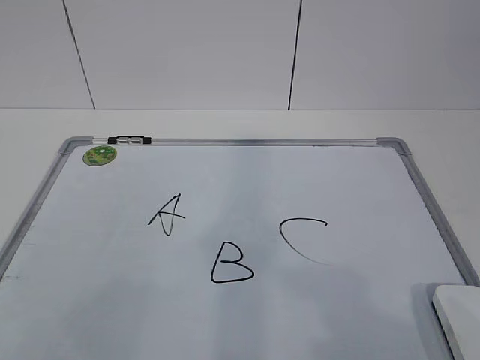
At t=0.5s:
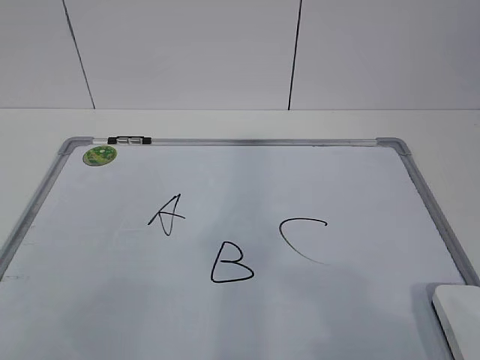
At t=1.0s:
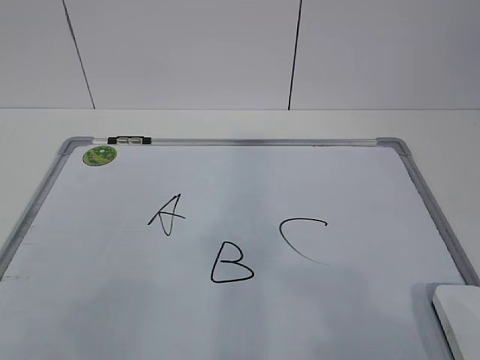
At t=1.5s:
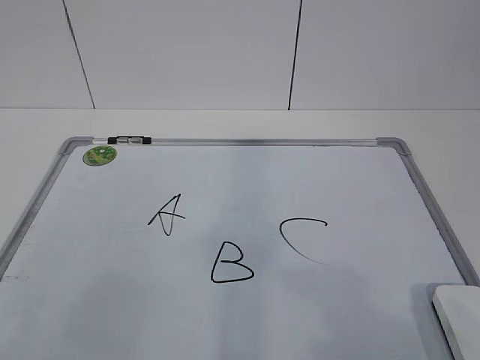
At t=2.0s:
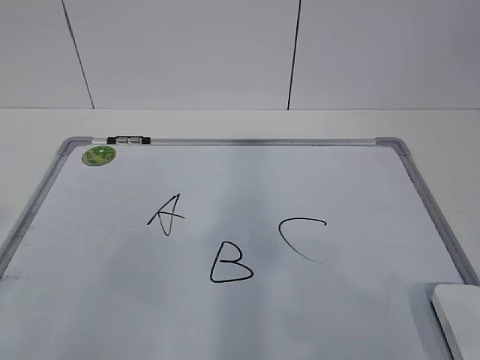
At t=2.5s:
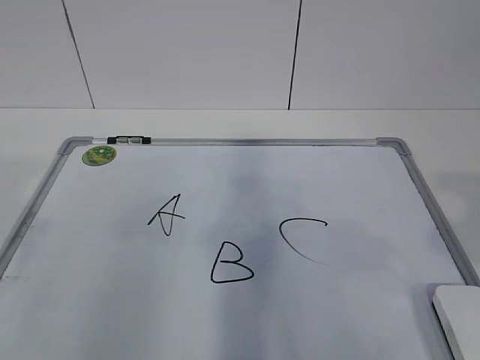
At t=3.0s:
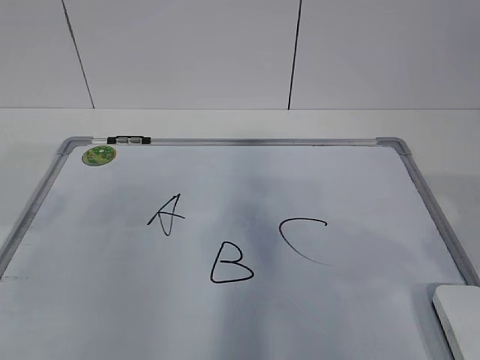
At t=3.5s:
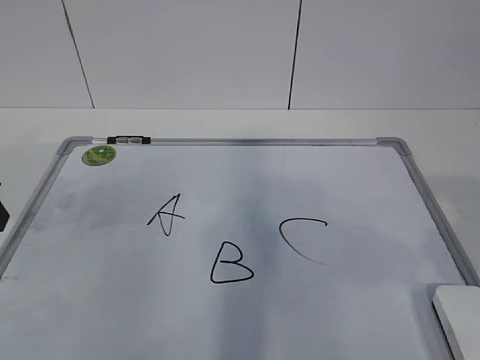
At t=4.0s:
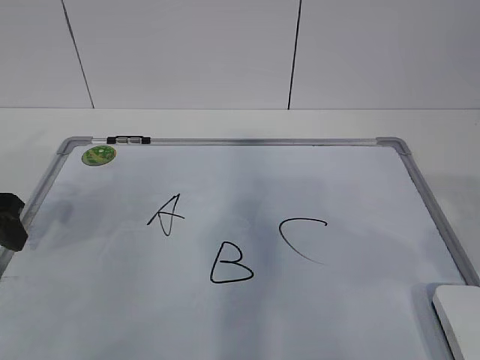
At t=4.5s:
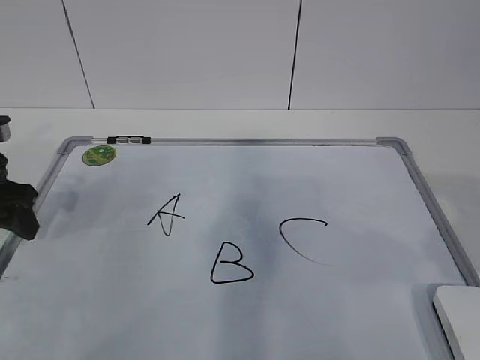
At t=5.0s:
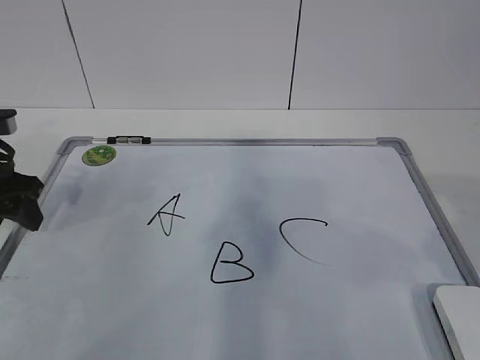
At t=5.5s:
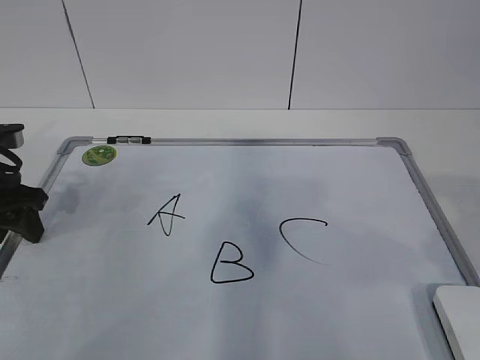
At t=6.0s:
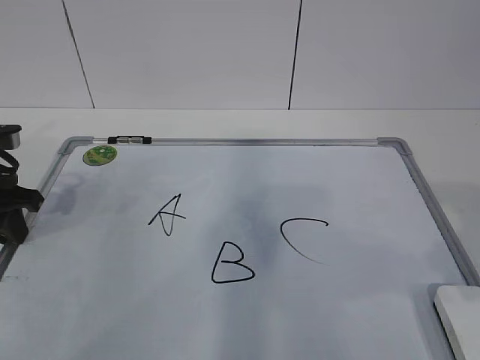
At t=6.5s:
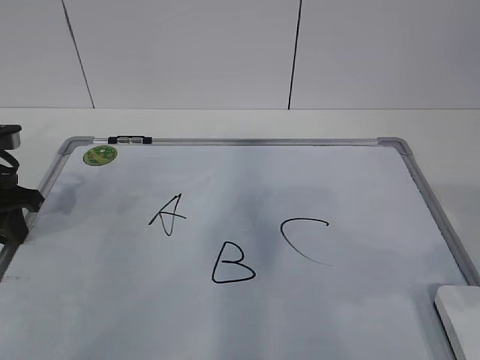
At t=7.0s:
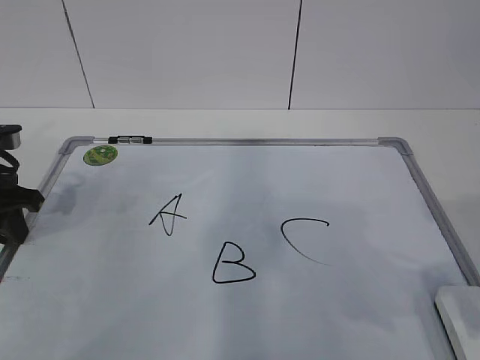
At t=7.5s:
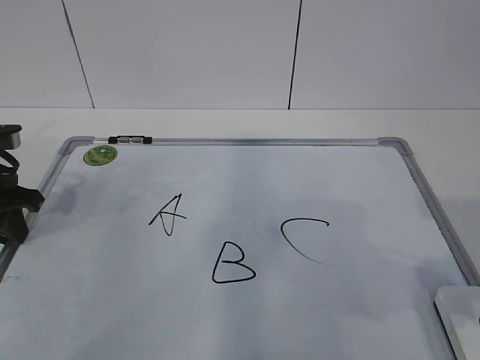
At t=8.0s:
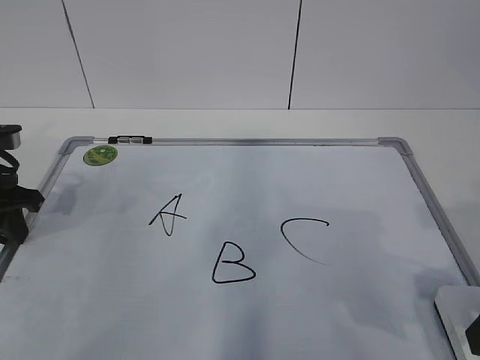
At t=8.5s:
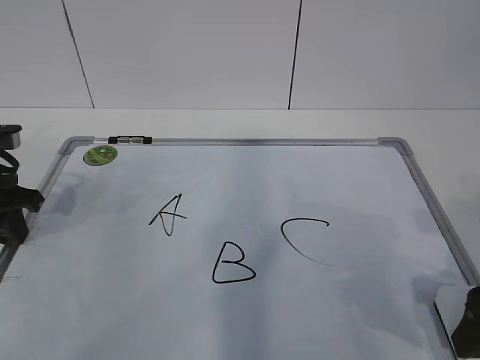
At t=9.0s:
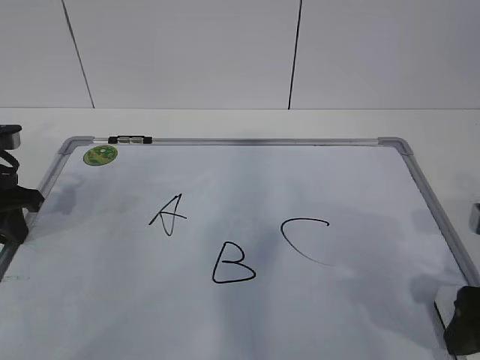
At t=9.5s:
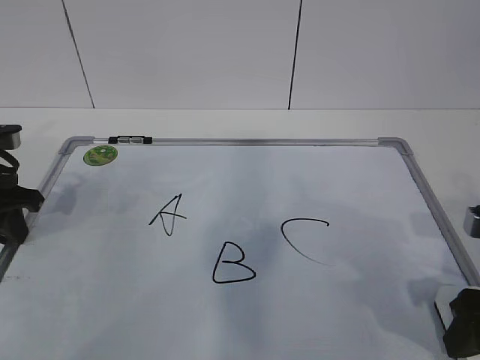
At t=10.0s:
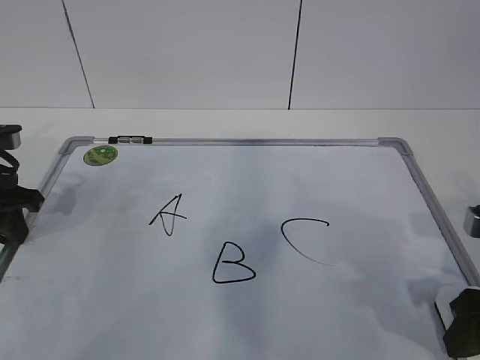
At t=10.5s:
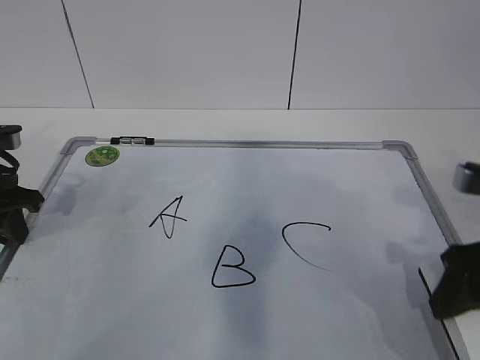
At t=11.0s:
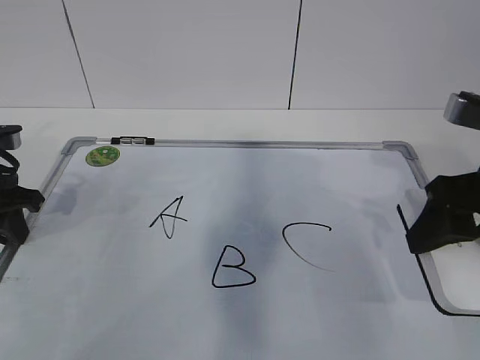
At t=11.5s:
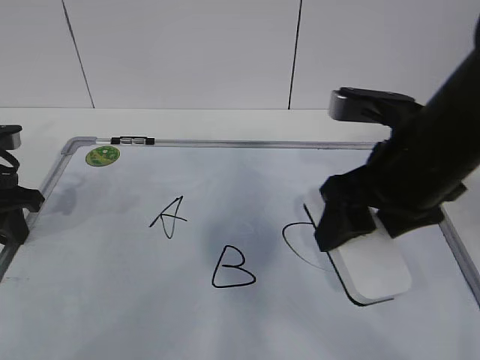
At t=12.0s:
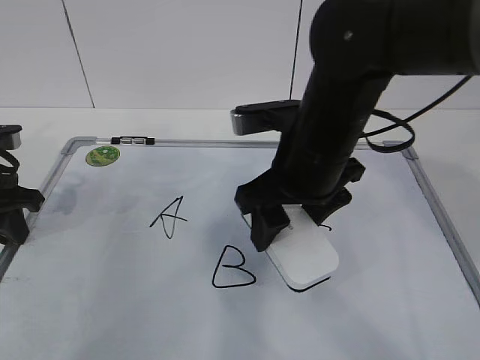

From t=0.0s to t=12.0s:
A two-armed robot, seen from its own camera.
Task of the whole recording: pick up the eraser on the blackboard and erase the letter "B".
Step, from t=0.0s to t=4.5s: Hold the drawing board steady with your left hand.
Step, from t=5.0s to t=8.0s: Grab the eraser with your right hand.
From t=2.0s to t=4.0s: The left gripper shifts approximately 30 cm forward and downward.
From t=4.0s to t=6.0s: The left gripper moves some 5 cm, and closes up.
From t=6.0s to t=8.0s: The right gripper is displaced downward by approximately 10 cm, and opens.
From t=8.0s to t=10.0s: The right gripper shifts by roughly 5 cm, and closes.
From t=10.0s to t=12.0s: The right gripper goes roughly 20 cm to the left and forward.

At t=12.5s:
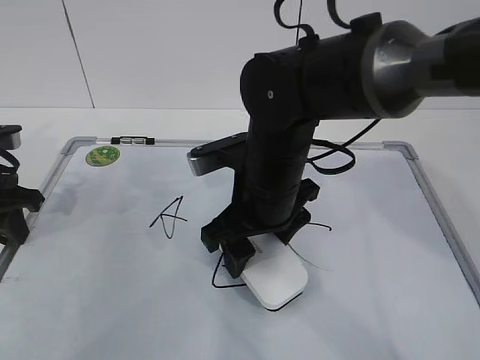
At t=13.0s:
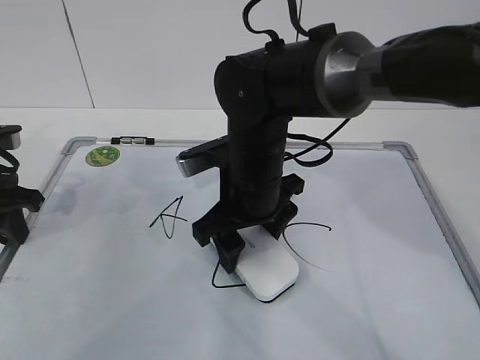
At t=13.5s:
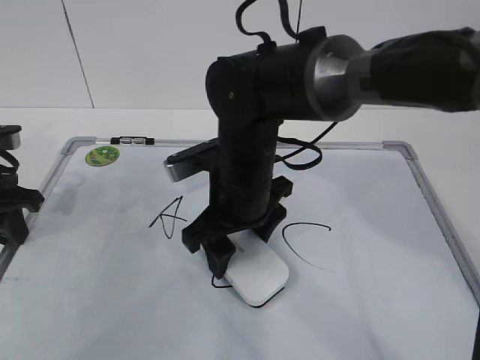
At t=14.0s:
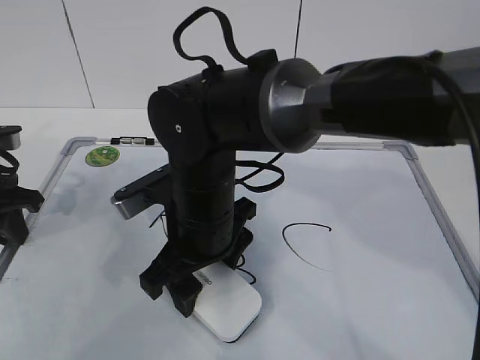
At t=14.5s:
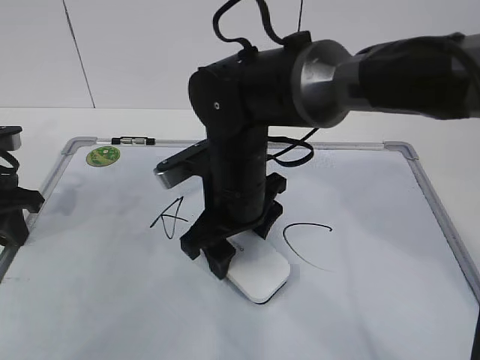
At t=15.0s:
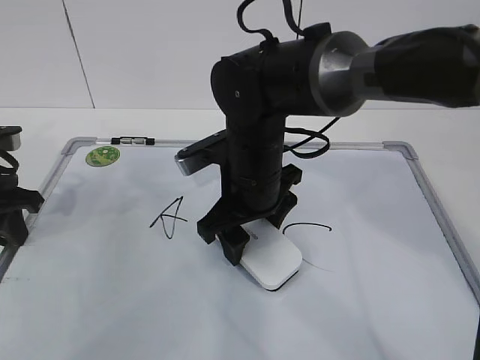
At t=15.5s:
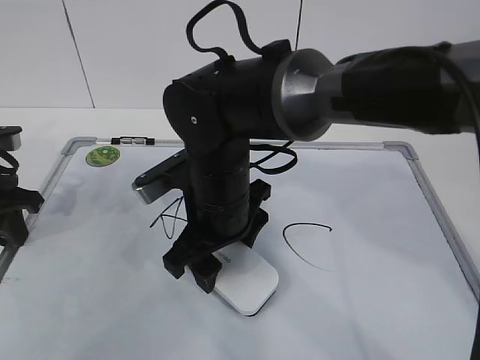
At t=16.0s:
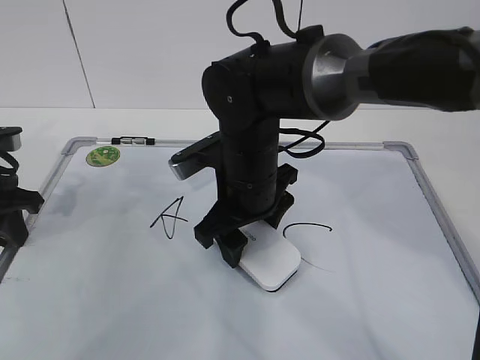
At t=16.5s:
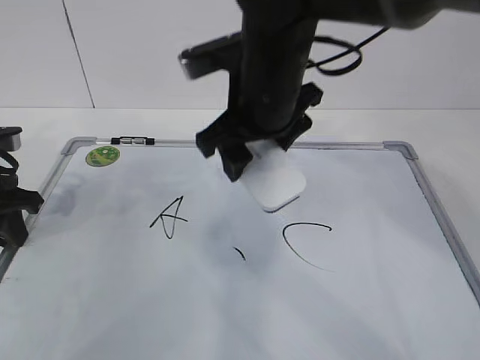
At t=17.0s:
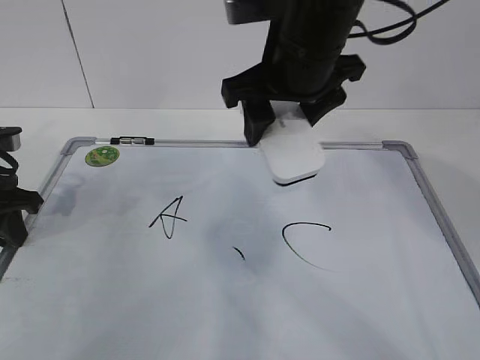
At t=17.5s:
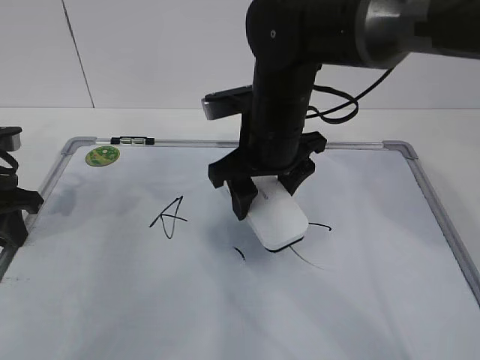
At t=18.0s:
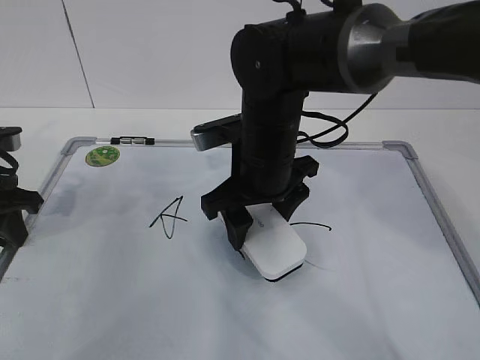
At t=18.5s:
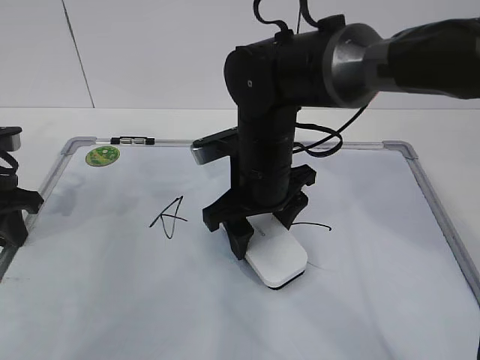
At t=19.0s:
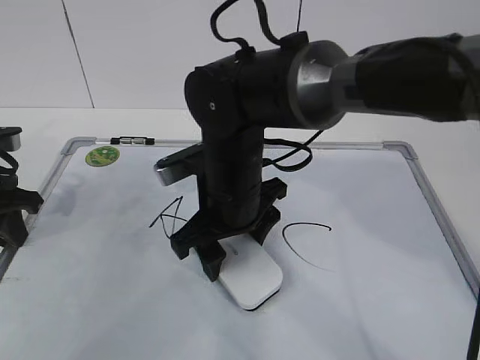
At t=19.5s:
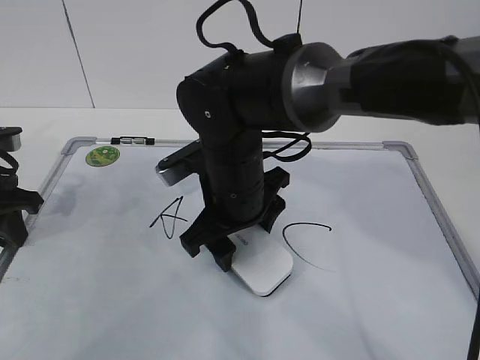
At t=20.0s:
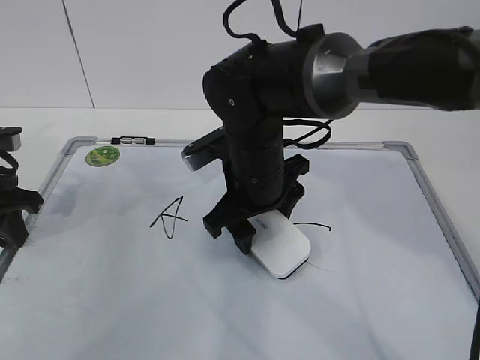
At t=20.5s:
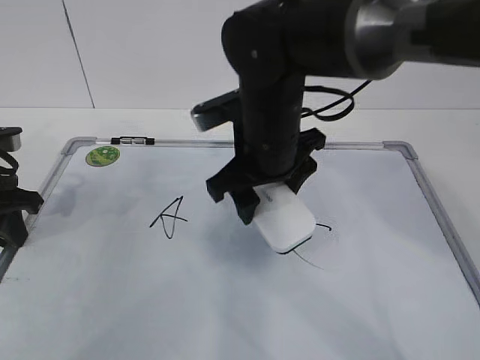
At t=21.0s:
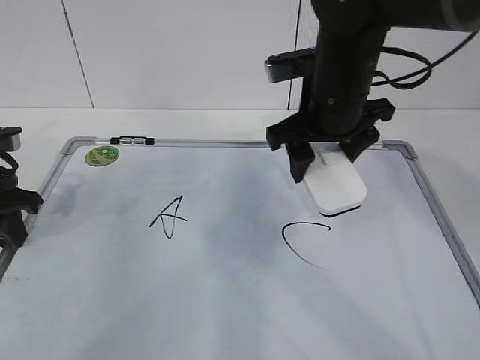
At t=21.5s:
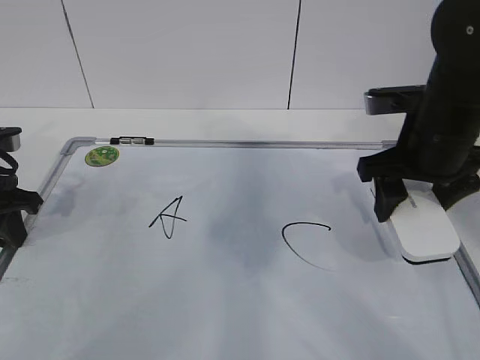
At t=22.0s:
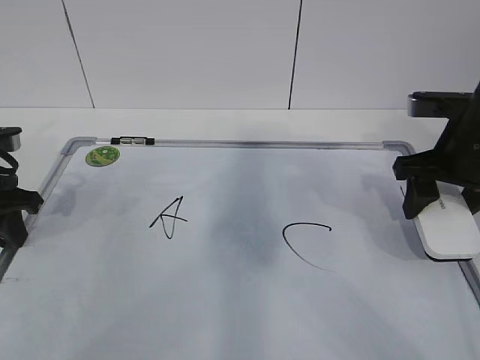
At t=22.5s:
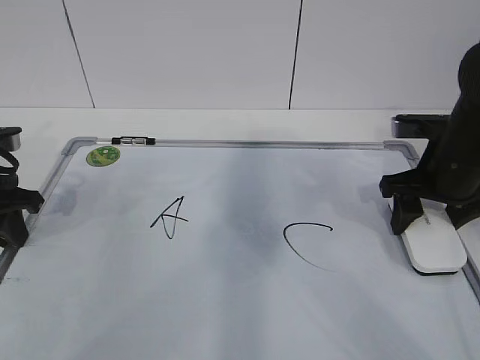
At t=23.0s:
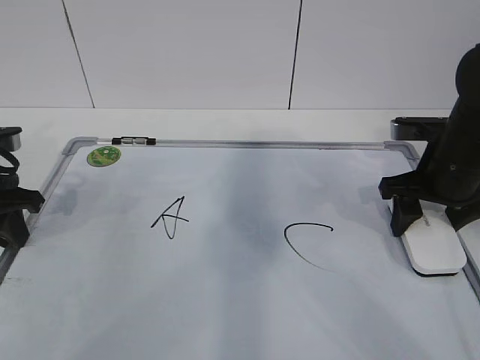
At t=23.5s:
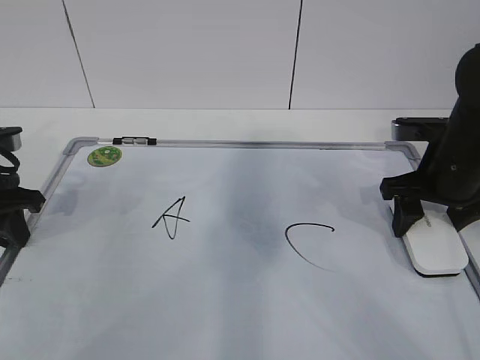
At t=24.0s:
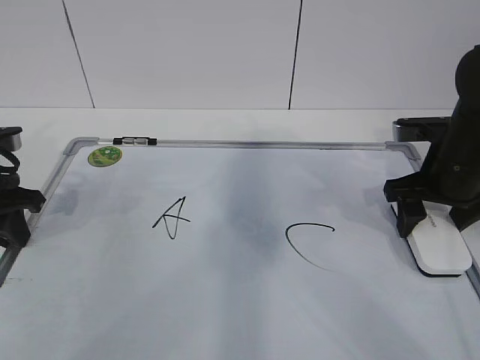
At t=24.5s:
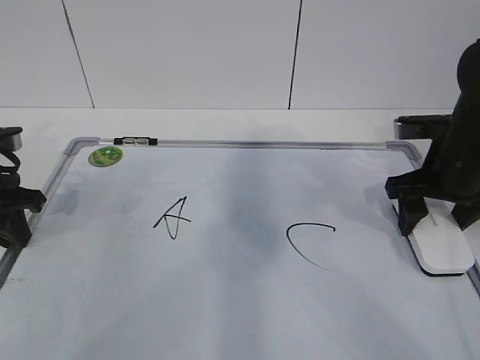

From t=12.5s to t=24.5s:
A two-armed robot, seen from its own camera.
Task of the whole recording: pick up the eraser on the blackboard and erase the letter "B".
Step, from t=12.5s to t=16.5s: Erase the letter B with your right hand.
Step, from t=17.0s to t=20.0s: Put down the eraser with your right hand.
From t=14.5s to t=16.5s: The right gripper goes some 10 cm upward.
From t=16.5s to t=18.5s: The right gripper shifts approximately 10 cm downward.
From t=18.5s to t=20.5s: The grippers stay close to where they were, moving slightly.
From t=20.5s to t=22.5s: The right gripper moves to the right, roughly 20 cm.
From t=22.5s to t=24.5s: The right gripper opens.

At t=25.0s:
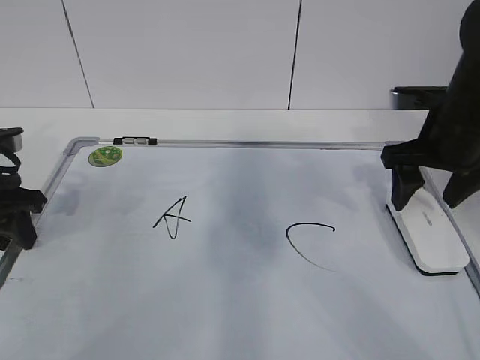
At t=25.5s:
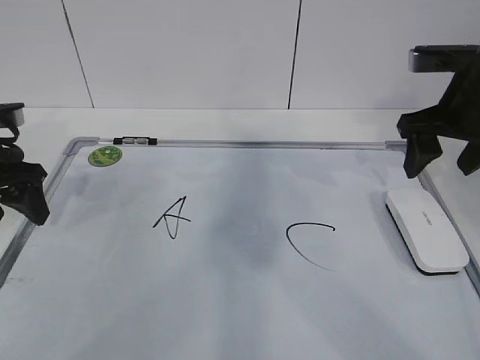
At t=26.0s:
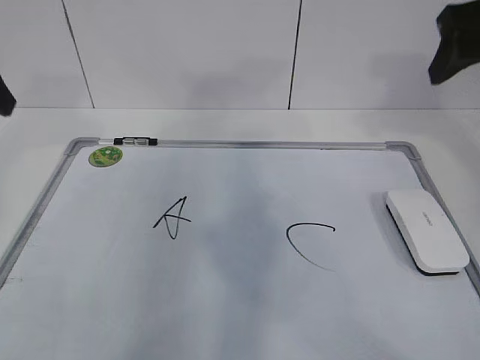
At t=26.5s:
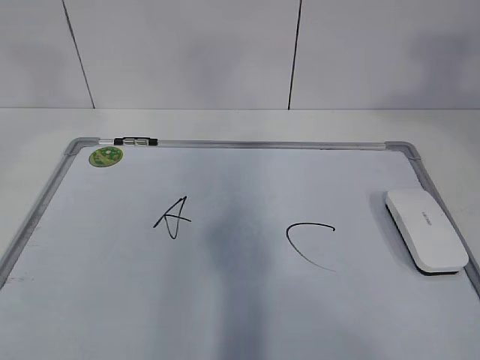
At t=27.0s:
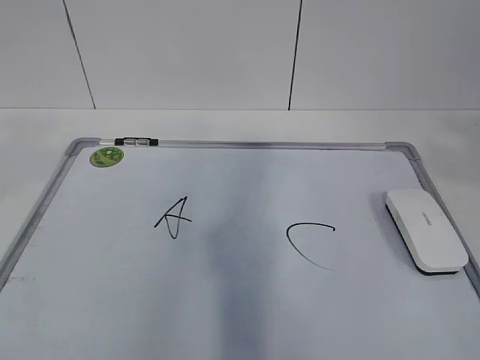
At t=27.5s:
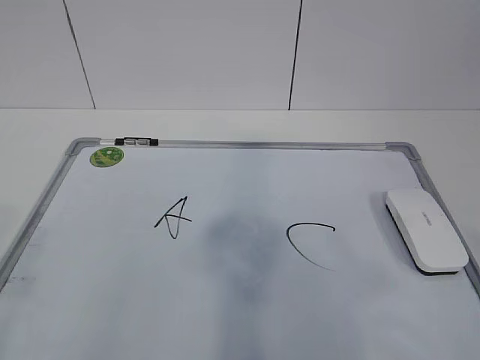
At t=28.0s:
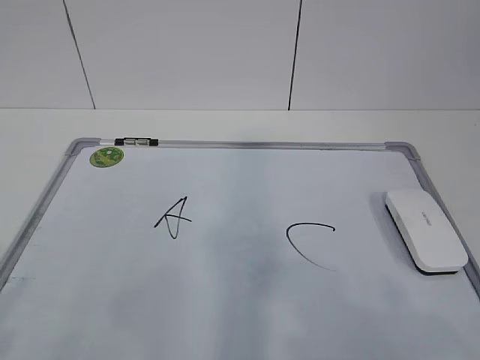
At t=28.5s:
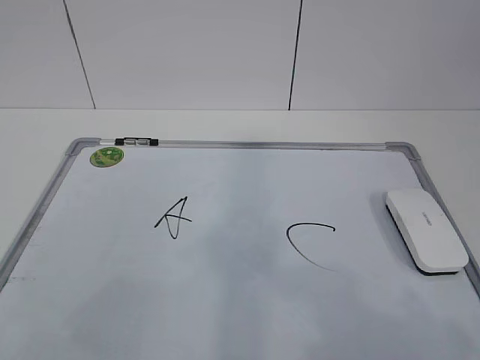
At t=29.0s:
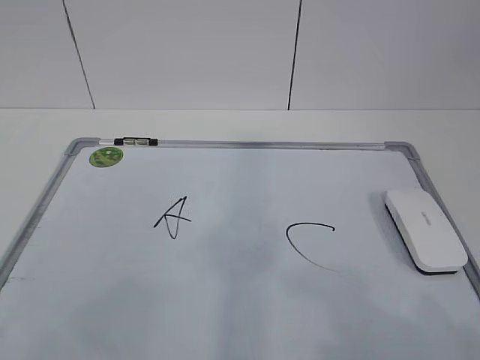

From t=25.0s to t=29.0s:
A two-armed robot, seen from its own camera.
Task of the whole recording: pick up the eraser on the blackboard and erase the letter "B".
From t=25.0s to t=27.0s: The right gripper moves backward and upward, some 40 cm. Meanwhile the left gripper shifts approximately 40 cm upward and backward, and opens.
From t=27.0s to t=29.0s: The right gripper moves downward, some 20 cm. Meanwhile the left gripper heads downward and backward, covering some 20 cm, and closes up.
